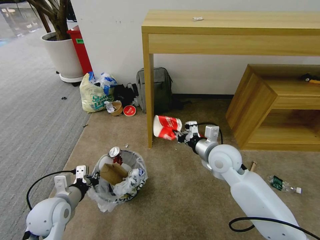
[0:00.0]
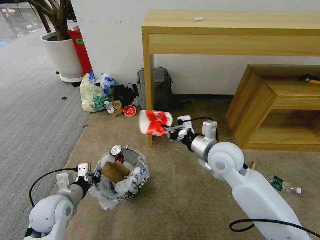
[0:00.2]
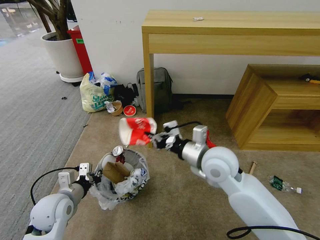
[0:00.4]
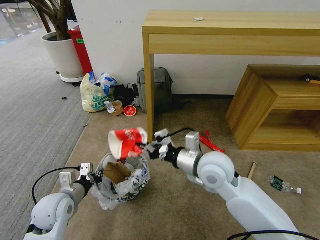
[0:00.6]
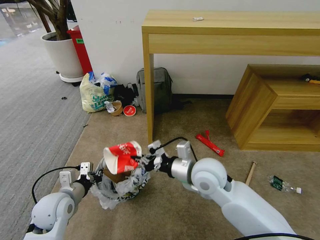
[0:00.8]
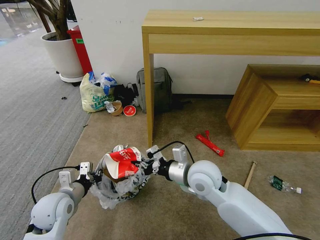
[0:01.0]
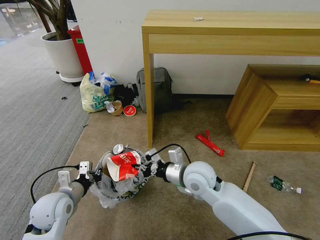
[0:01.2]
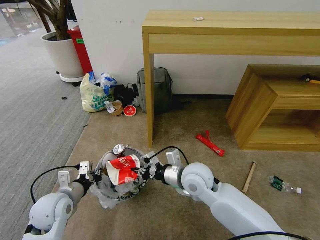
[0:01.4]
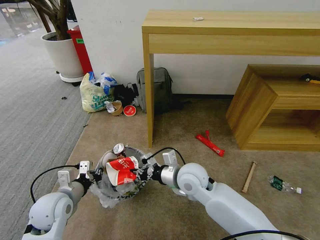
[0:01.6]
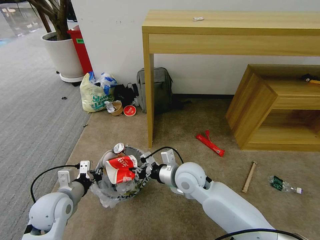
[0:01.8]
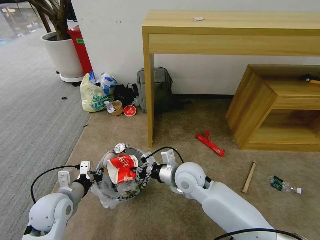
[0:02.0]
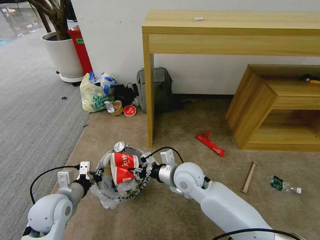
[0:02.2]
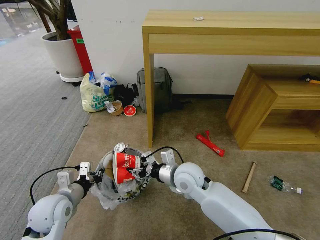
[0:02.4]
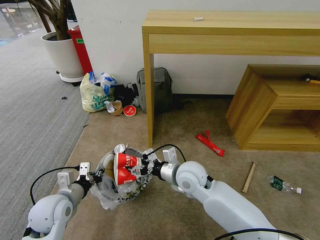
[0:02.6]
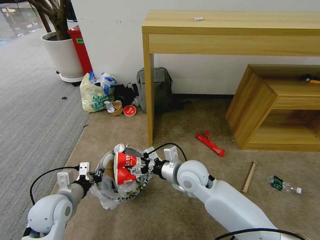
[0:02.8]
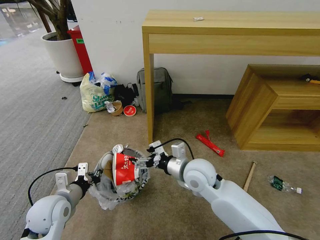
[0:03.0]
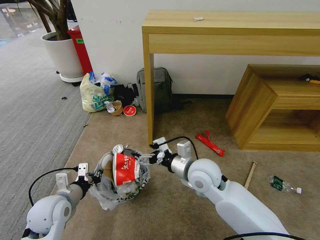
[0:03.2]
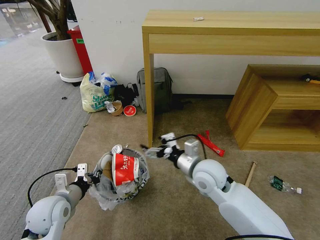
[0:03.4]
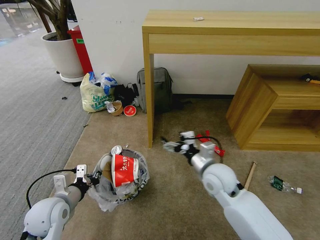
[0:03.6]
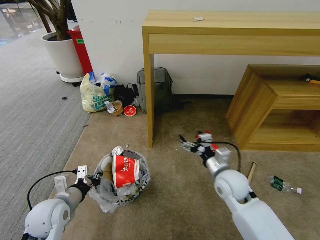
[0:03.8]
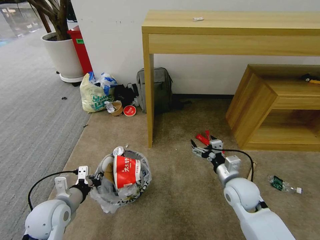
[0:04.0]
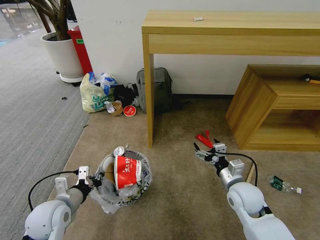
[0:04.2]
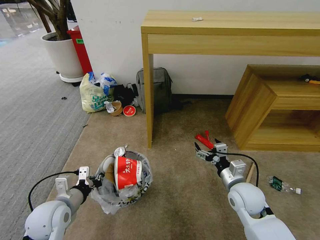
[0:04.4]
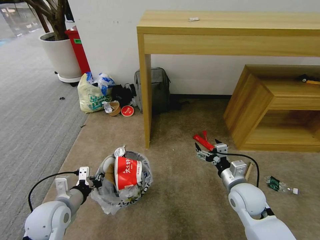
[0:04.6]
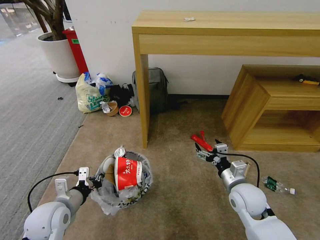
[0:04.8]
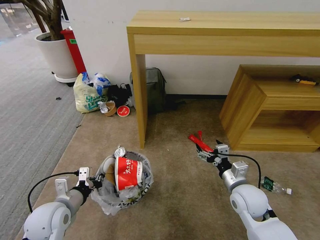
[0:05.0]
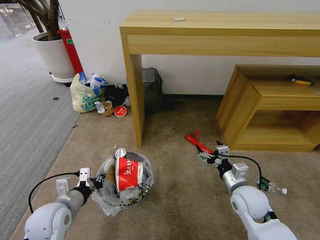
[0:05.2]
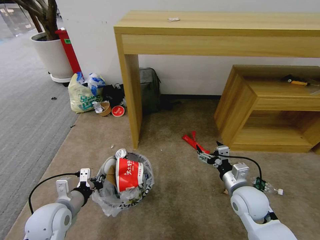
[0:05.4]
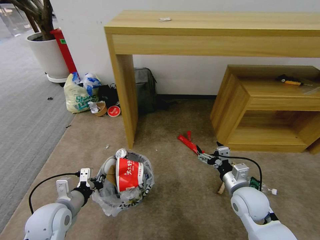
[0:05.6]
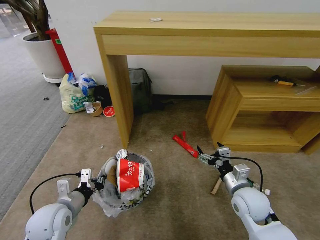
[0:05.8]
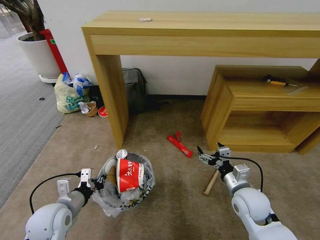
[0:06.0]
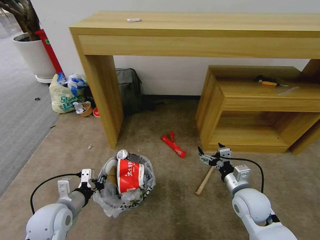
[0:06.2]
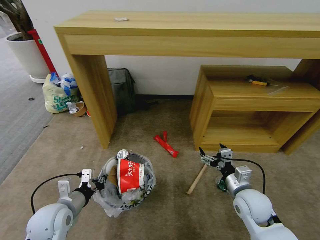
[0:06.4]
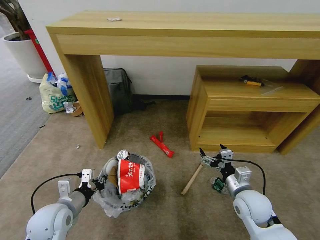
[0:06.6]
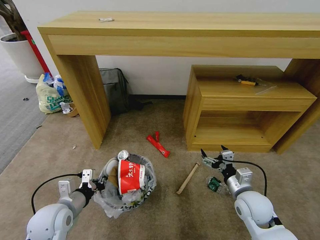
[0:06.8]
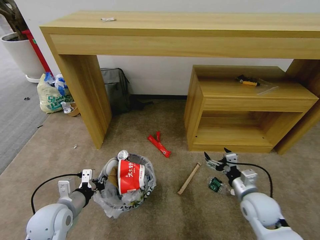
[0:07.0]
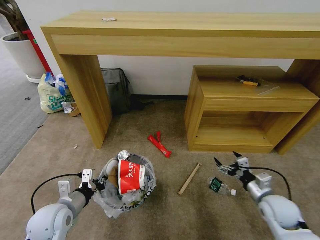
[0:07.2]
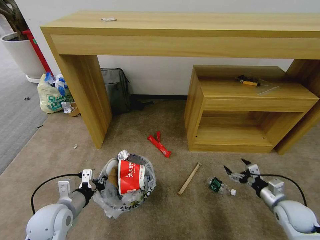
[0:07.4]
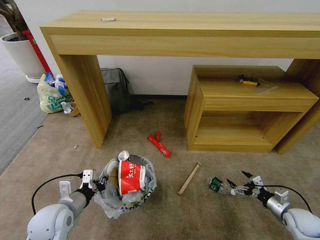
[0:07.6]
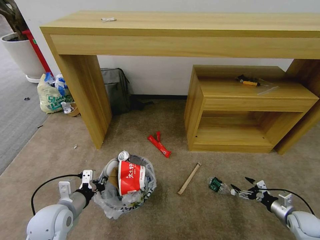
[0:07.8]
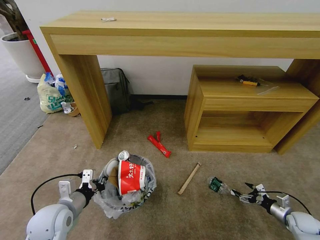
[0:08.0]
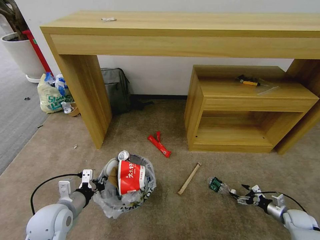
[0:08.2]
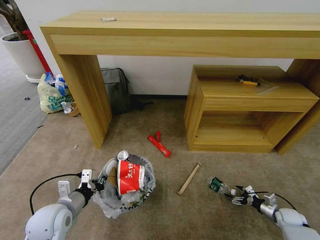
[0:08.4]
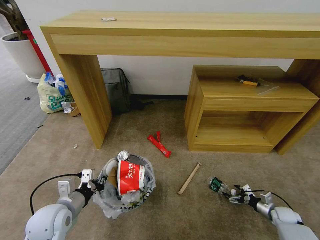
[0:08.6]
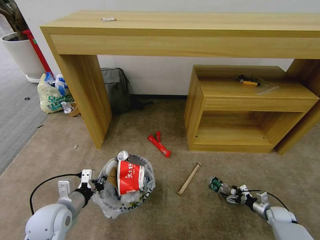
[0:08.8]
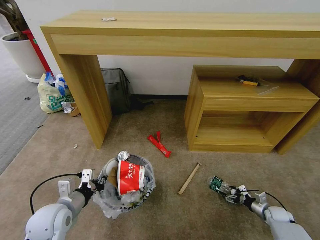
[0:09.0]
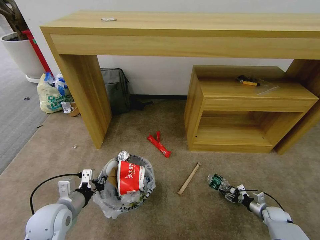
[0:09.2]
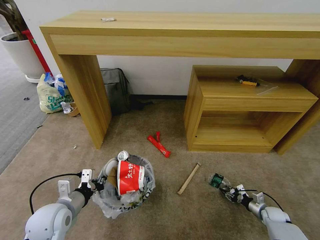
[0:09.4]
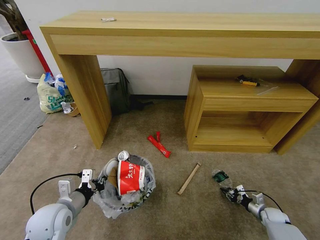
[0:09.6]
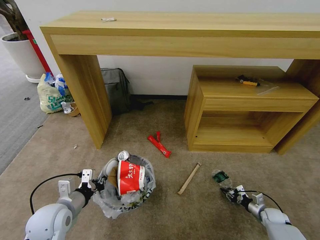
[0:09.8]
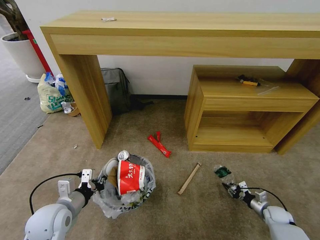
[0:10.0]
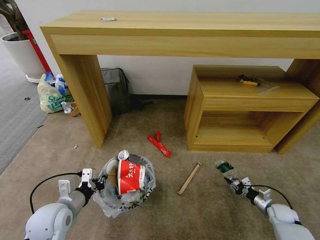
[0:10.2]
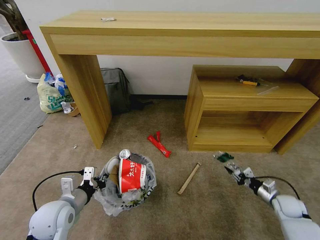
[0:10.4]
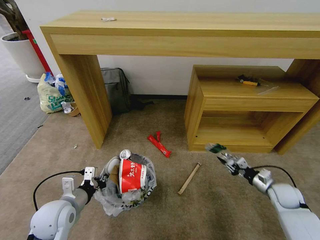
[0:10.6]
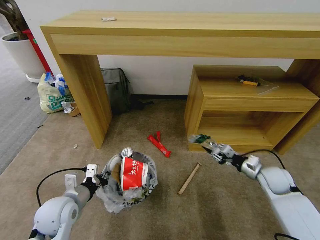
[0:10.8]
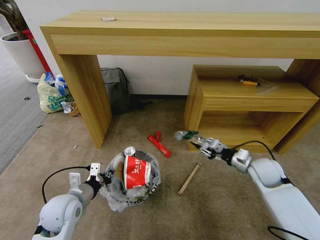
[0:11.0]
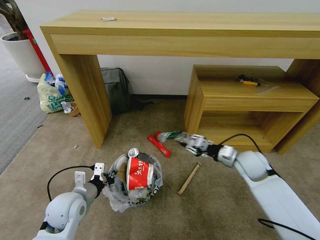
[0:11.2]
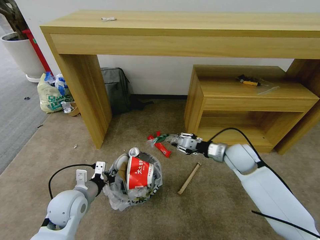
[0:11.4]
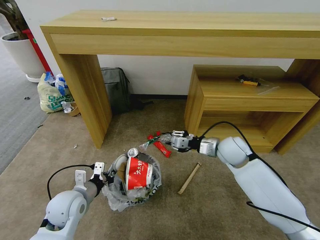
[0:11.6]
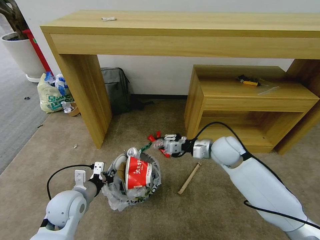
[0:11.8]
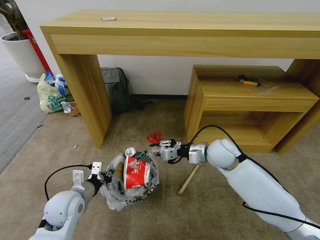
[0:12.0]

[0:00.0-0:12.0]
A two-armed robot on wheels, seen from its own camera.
Task of the whole recording: Pick up the trash bin and place the garbage on the floor into it.
0:00.0 to 0:01.6: The right gripper goes some 10 cm to the left.
0:01.6 to 0:03.0: The right gripper opens up.
0:03.0 to 0:04.4: The right gripper shifts about 15 cm to the right and downward.
0:06.0 to 0:07.6: The right gripper is displaced to the right and downward by roughly 25 cm.
0:07.6 to 0:09.0: The right gripper shifts approximately 15 cm downward.
0:09.0 to 0:10.4: The right gripper goes approximately 10 cm upward, and closes.
0:10.4 to 0:12.0: The right gripper is displaced to the left and upward by approximately 35 cm.

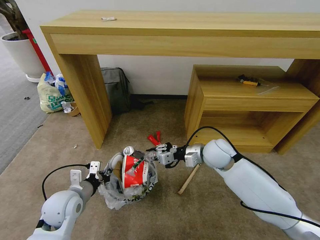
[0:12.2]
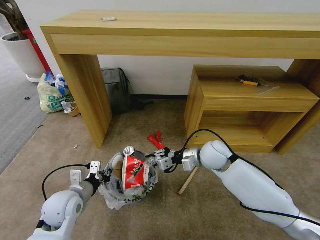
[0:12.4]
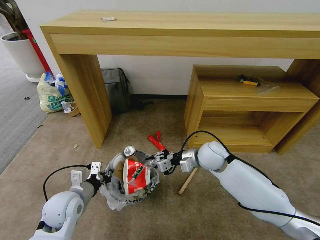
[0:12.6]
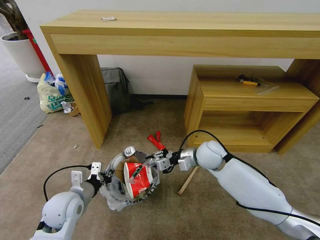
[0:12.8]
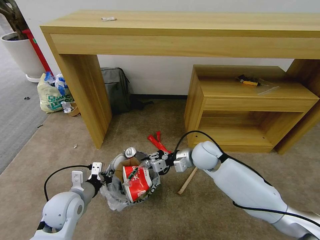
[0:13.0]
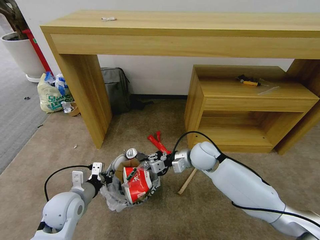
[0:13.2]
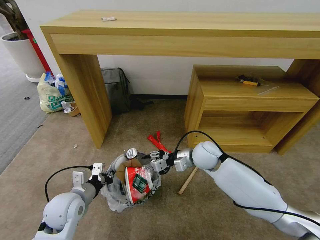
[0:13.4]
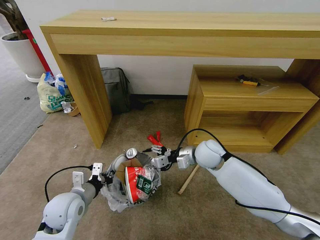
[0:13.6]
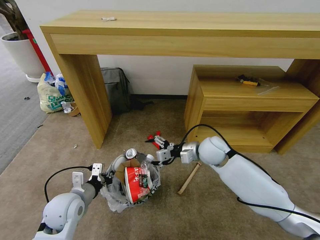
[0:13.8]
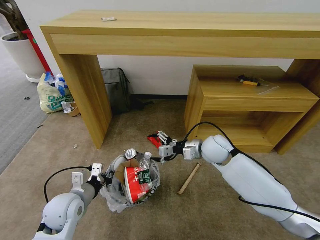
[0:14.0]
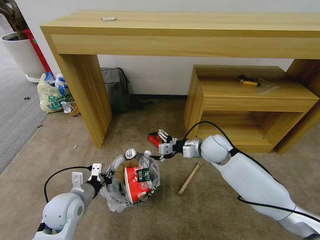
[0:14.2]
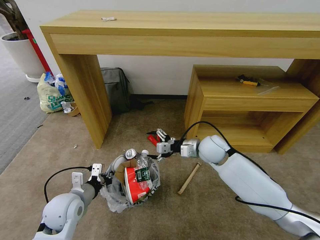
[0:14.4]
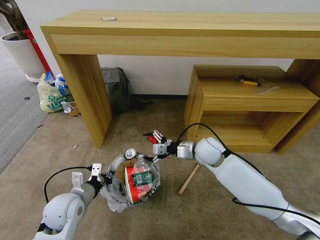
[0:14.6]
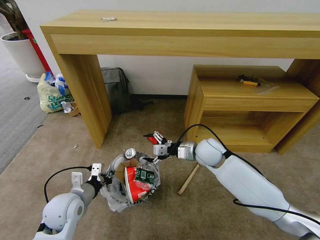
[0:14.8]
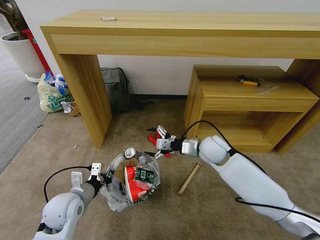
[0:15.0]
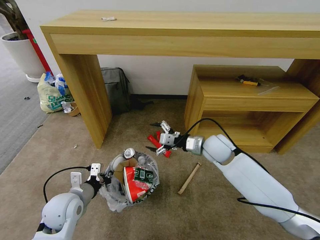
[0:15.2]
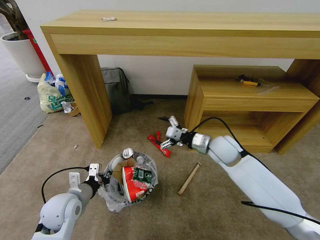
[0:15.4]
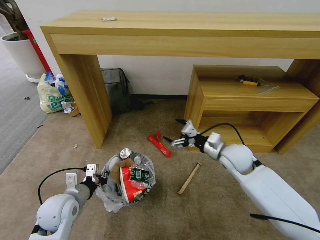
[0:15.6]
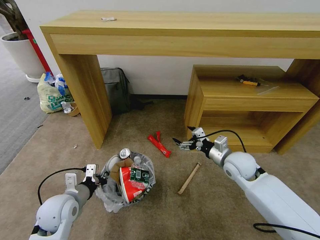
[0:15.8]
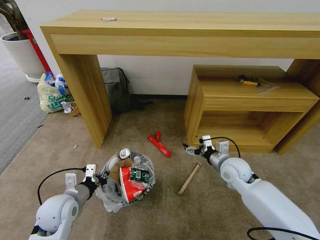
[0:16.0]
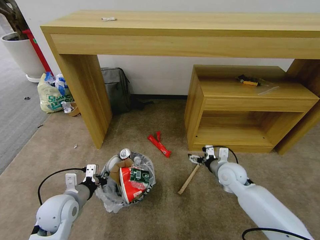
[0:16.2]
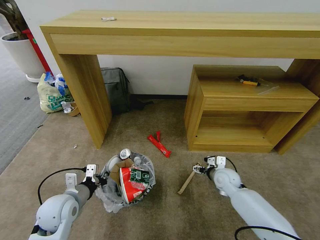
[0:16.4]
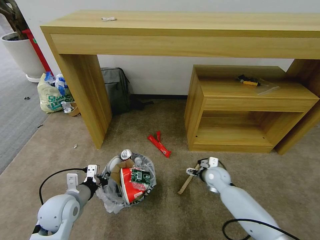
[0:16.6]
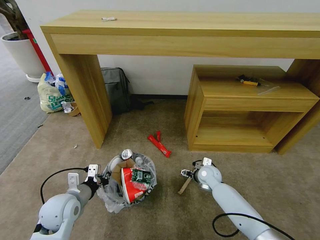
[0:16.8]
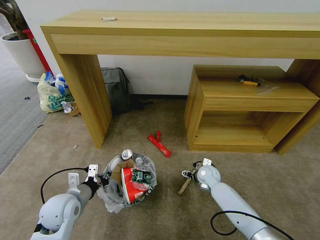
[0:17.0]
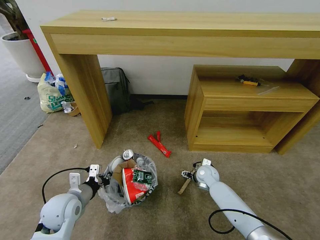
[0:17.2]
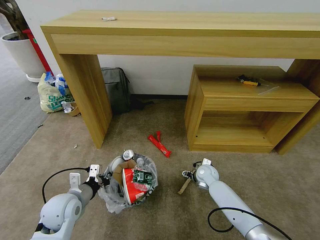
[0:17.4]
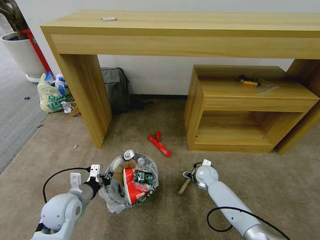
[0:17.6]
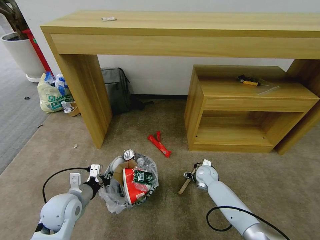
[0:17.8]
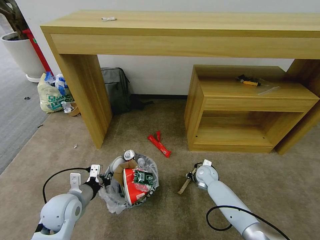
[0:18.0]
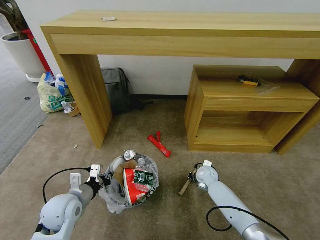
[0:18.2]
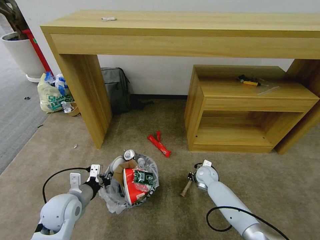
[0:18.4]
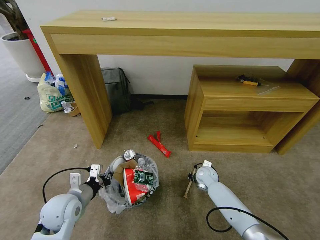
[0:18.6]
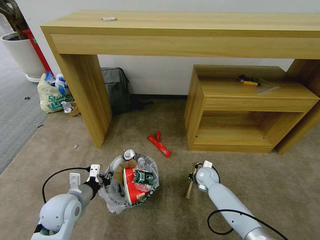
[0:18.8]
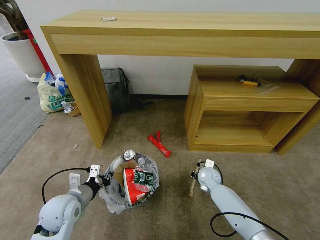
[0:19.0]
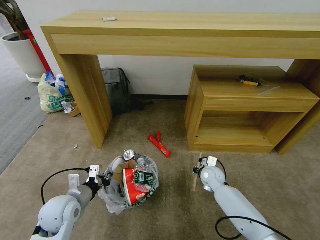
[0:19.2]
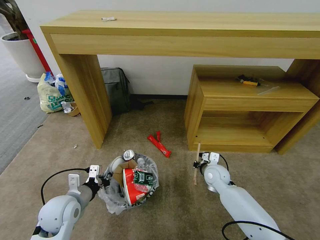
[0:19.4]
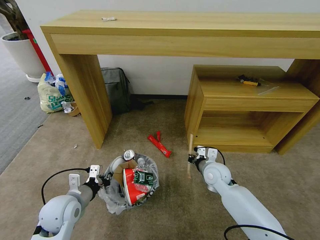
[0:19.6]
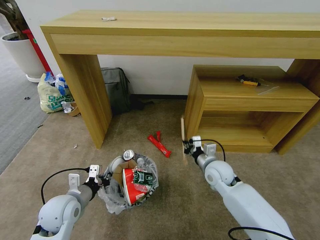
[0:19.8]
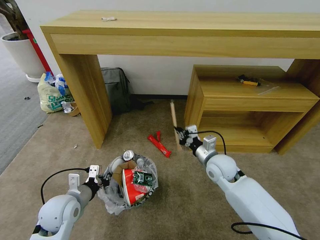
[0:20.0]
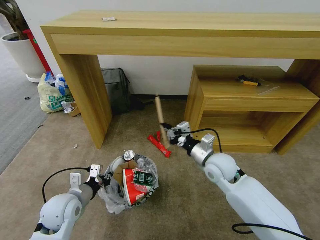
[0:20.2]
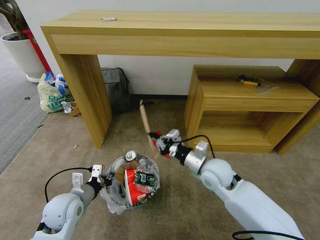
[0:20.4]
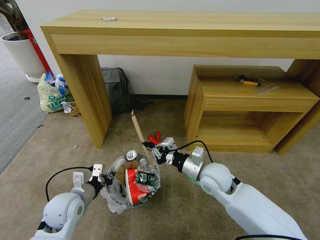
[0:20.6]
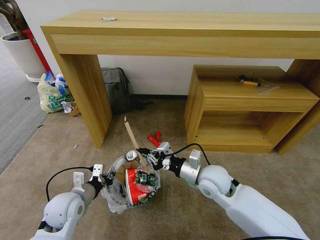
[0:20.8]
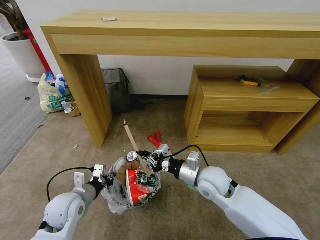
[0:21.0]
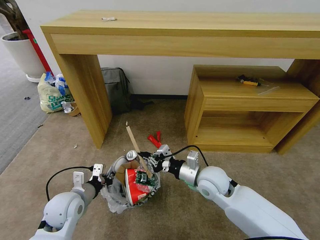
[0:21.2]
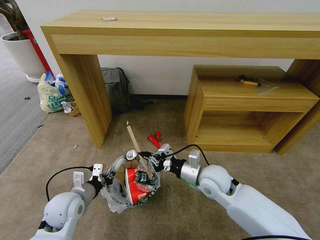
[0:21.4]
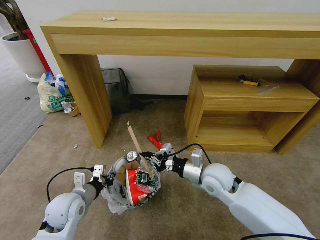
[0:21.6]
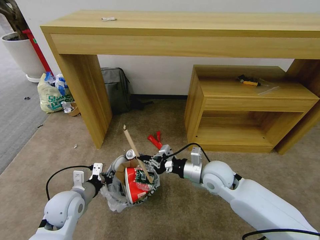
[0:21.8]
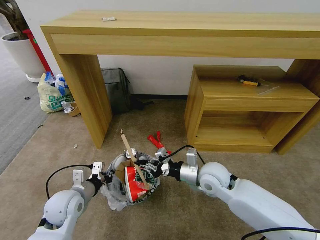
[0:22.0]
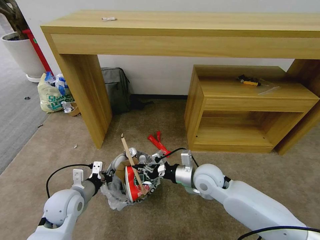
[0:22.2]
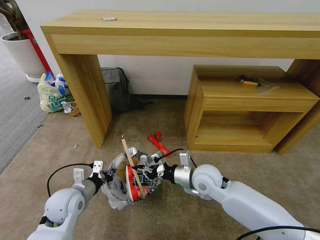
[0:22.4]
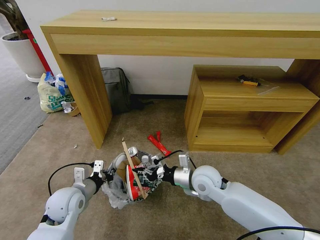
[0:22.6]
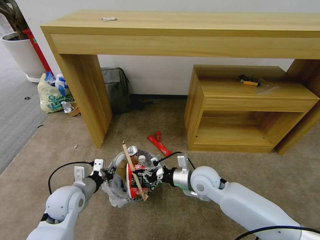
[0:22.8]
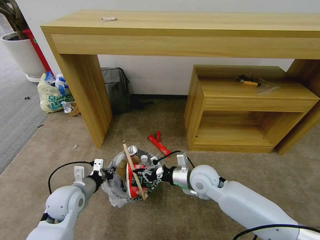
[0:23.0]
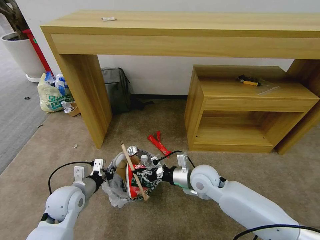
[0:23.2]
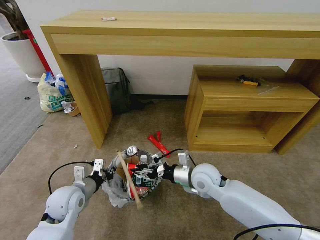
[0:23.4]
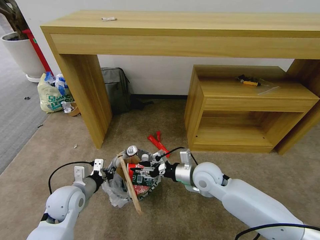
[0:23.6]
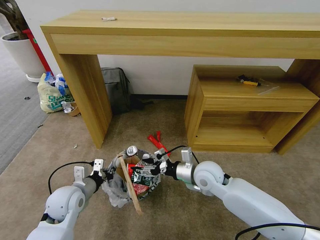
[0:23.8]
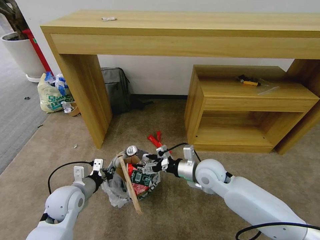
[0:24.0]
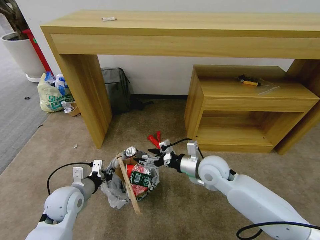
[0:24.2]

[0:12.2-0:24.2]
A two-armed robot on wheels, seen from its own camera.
Task of the whole recording: Pick up the trash bin and place the garbage on the floor into it.
0:12.2 to 0:13.8: The right gripper opens up.
0:15.2 to 0:16.6: The right gripper is displaced downward by roughly 20 cm.
0:16.6 to 0:18.2: The right gripper changes place by some 5 cm, and closes its fingers.
0:18.2 to 0:19.8: The right gripper travels upward and backward by approximately 15 cm, and closes its fingers.
0:19.8 to 0:21.2: The right gripper is displaced backward, upward and to the left by about 10 cm.
0:22.6 to 0:24.2: The right gripper opens.
